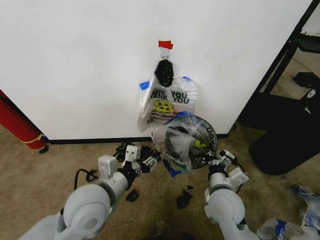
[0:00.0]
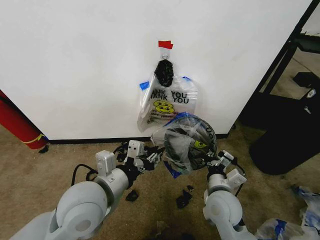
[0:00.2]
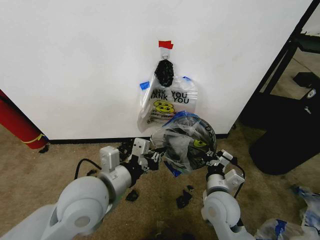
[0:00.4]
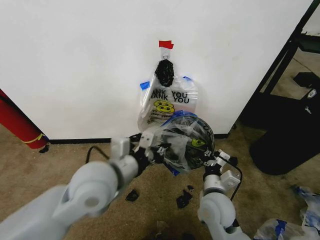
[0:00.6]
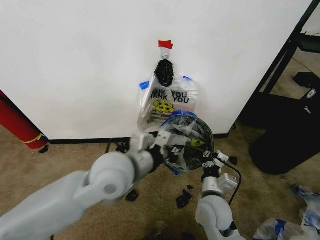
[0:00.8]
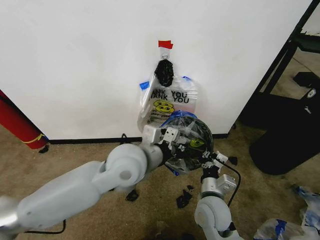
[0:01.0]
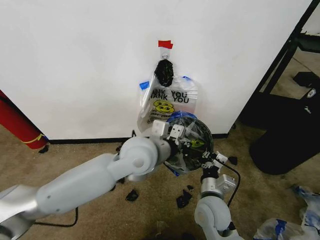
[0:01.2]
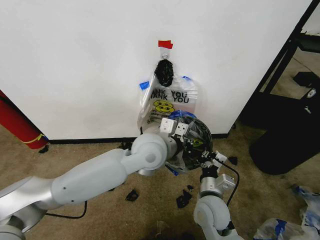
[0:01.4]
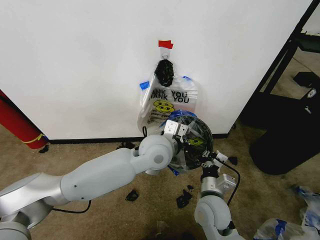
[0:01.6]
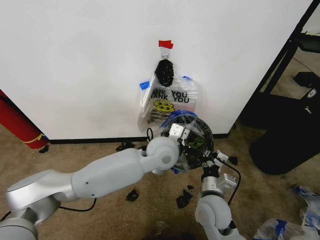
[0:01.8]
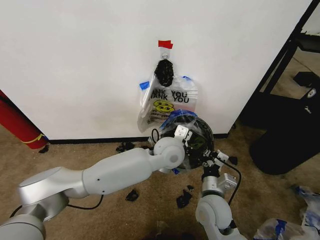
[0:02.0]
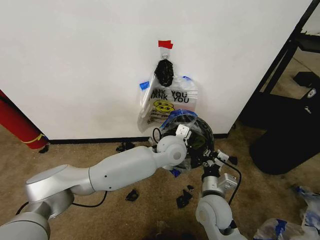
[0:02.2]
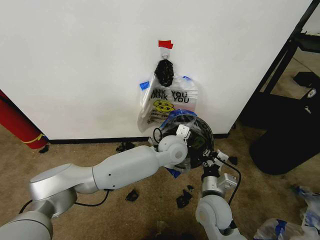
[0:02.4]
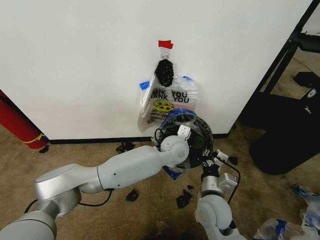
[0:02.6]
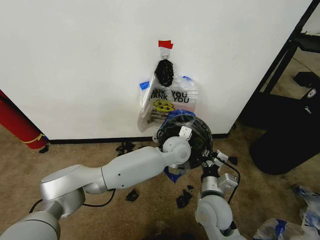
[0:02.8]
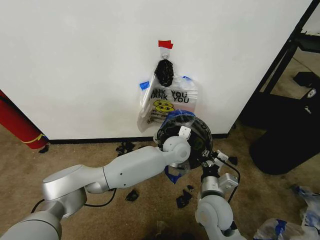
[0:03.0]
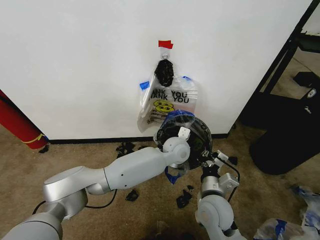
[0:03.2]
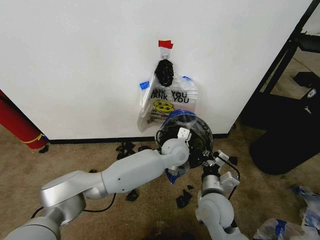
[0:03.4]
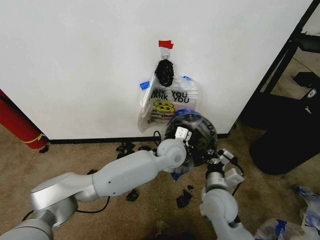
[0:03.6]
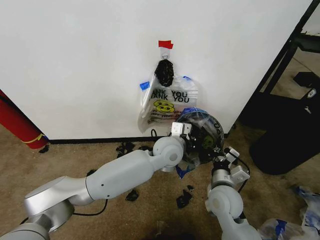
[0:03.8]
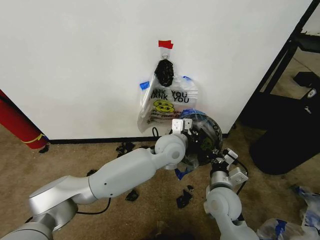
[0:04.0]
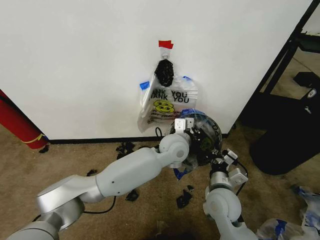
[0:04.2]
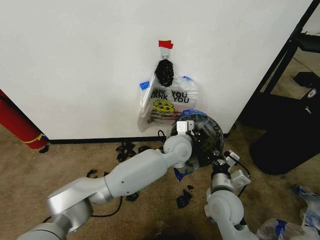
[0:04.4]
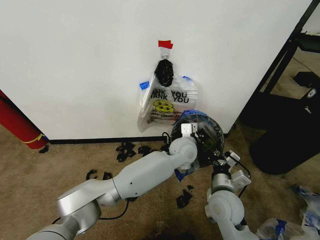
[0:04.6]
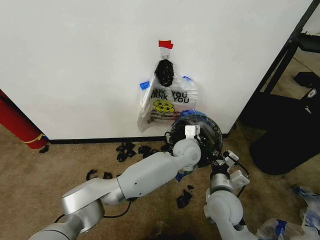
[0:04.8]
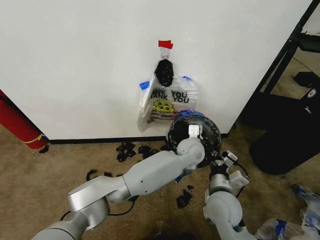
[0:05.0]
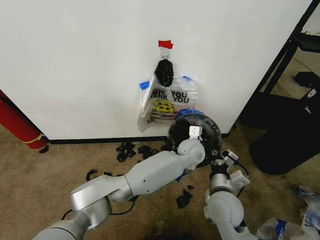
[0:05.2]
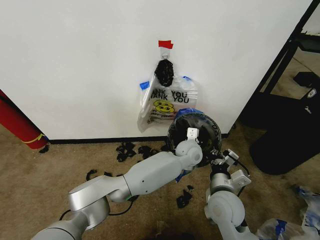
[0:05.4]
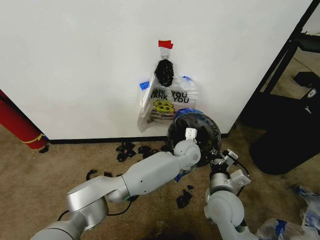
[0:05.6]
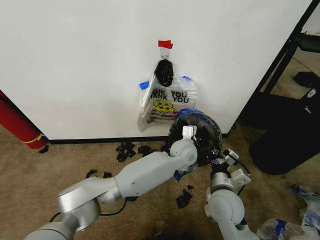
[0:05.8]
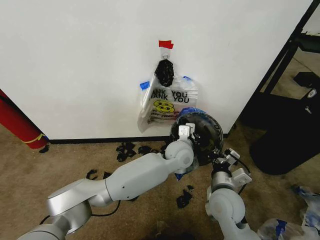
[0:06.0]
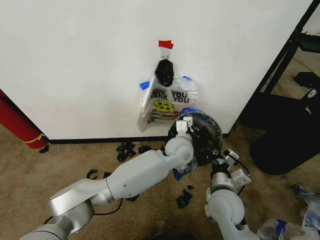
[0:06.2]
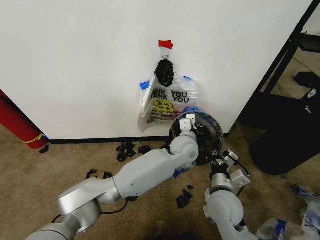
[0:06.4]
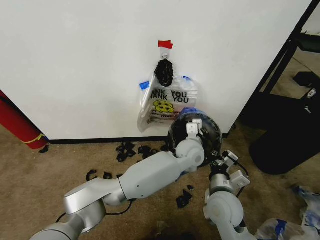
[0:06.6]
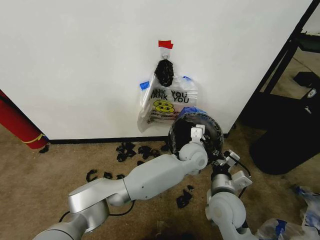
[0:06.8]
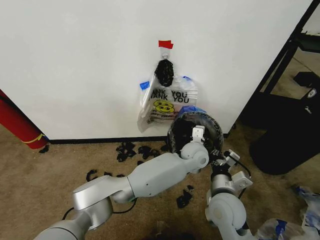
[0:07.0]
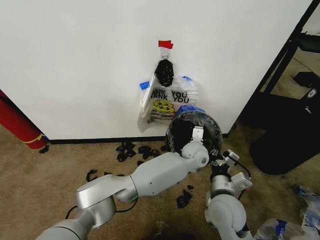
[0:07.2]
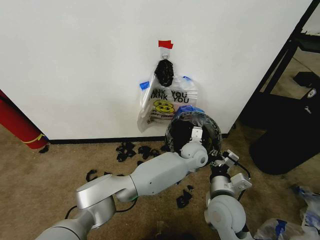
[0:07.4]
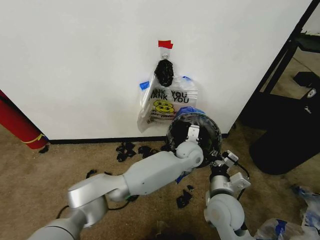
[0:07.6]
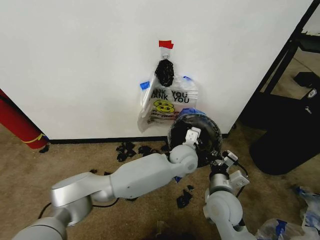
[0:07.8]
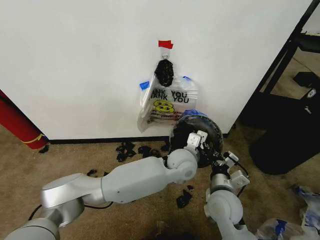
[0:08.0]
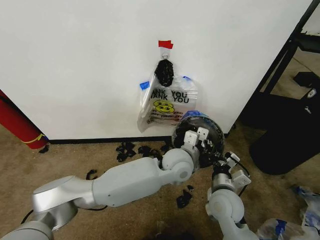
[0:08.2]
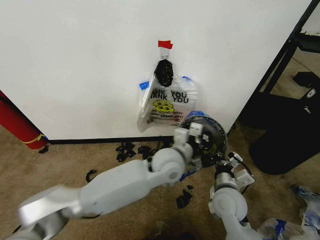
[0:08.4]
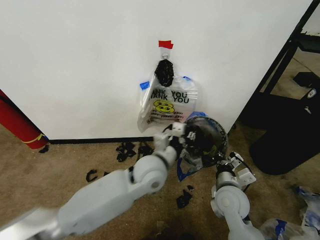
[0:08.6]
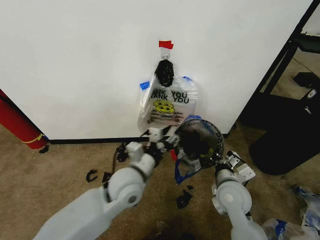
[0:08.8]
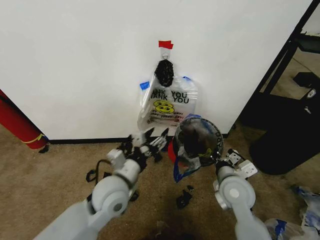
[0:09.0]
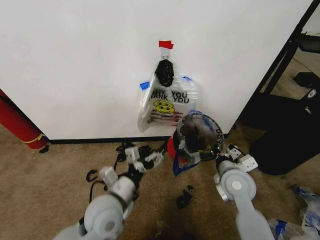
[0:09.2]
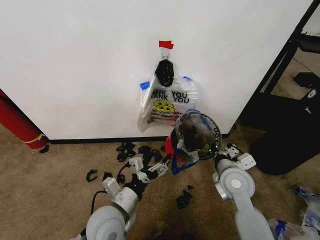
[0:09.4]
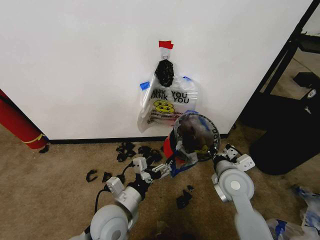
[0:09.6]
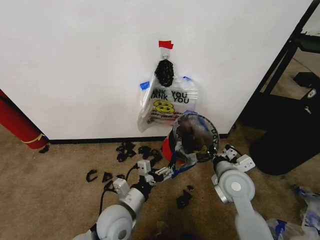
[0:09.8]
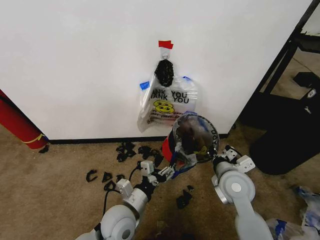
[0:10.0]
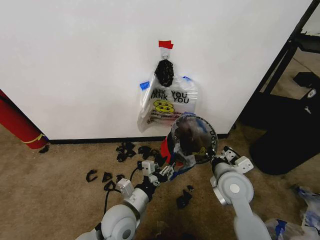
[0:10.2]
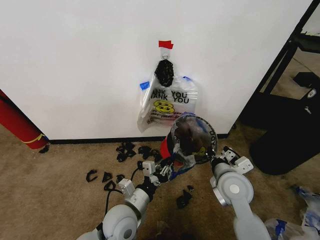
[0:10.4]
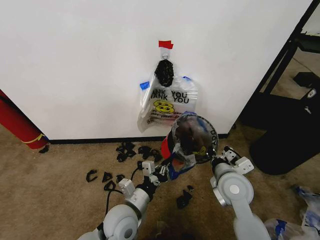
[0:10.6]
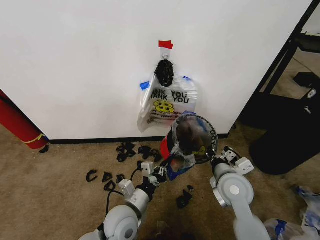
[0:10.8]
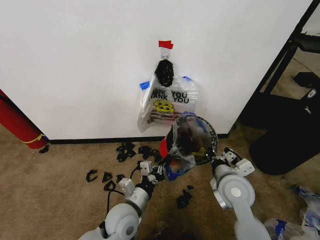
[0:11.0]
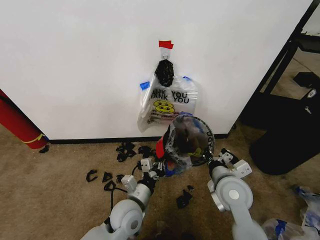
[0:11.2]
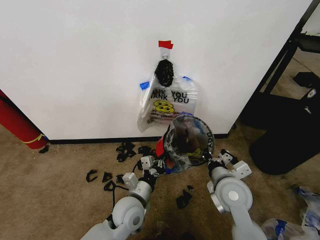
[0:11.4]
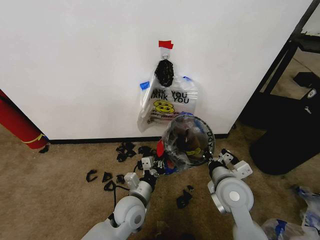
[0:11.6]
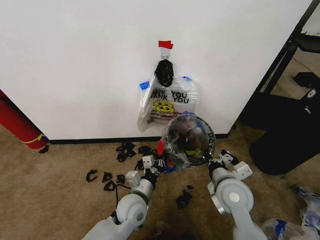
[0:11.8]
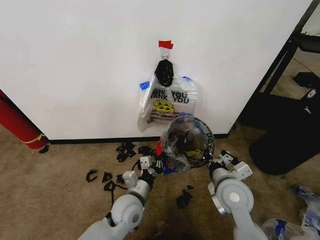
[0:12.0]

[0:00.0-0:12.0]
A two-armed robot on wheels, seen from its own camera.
Task of the whole recording: Pick up the garbage bag from the wall and place it over the trash bin.
0:00.0 to 0:01.6: The left gripper is displaced to the right and forward by roughly 20 cm, and closes up.
0:01.6 to 0:03.0: The left gripper shifts roughly 15 cm downward, forward and to the right.
0:06.0 to 0:07.6: The left gripper changes place by about 5 cm.
0:07.6 to 0:09.0: The left gripper goes some 30 cm to the left and backward, and opens its fingers. The right gripper moves approximately 5 cm.
0:09.0 to 0:10.4: The left gripper heads downward and backward, covering about 10 cm, and closes up.
0:10.4 to 0:12.0: The left gripper ends up about 5 cm from where it was.

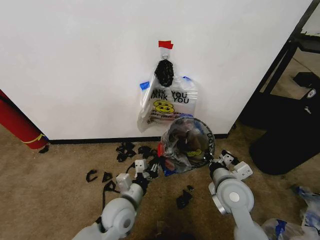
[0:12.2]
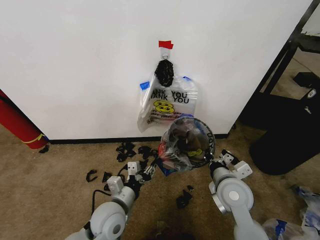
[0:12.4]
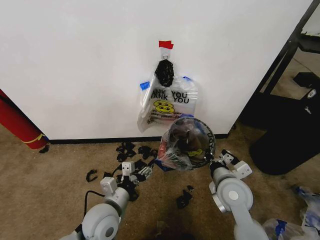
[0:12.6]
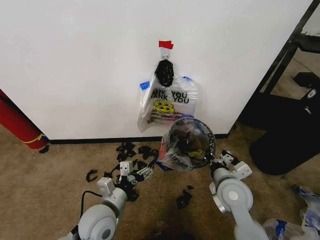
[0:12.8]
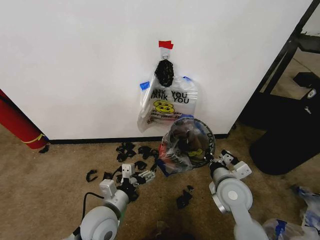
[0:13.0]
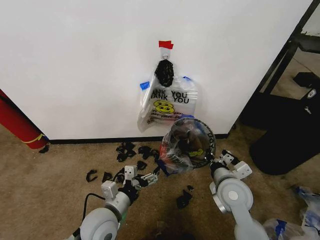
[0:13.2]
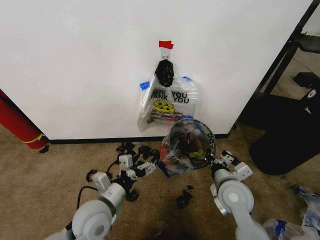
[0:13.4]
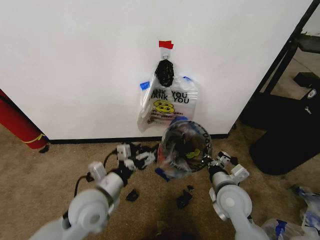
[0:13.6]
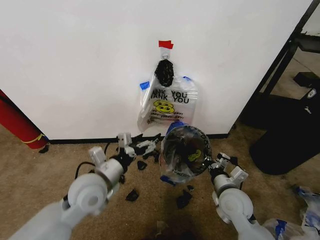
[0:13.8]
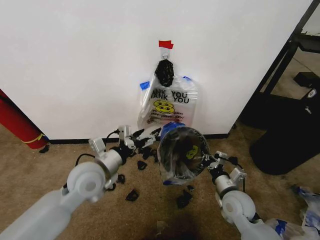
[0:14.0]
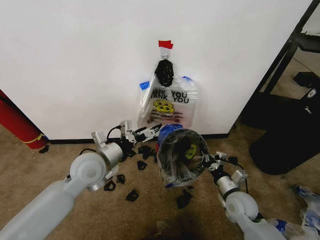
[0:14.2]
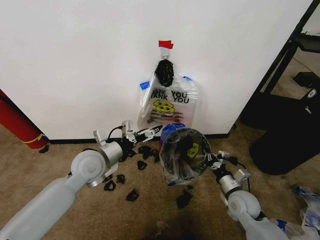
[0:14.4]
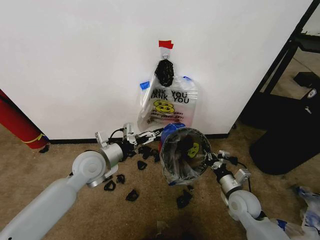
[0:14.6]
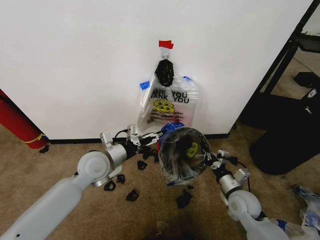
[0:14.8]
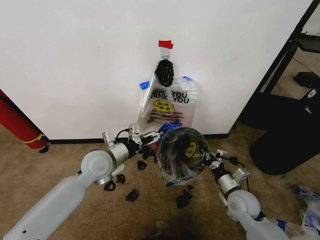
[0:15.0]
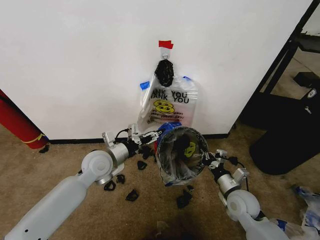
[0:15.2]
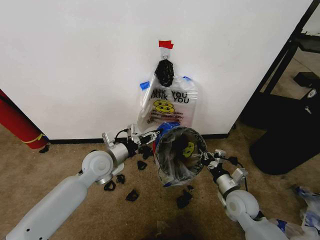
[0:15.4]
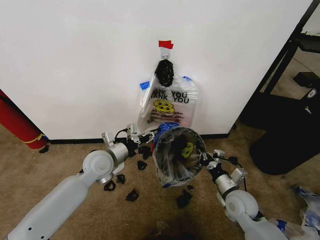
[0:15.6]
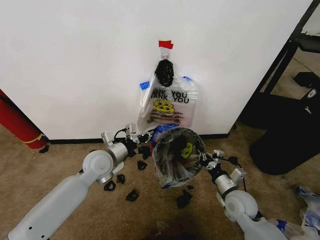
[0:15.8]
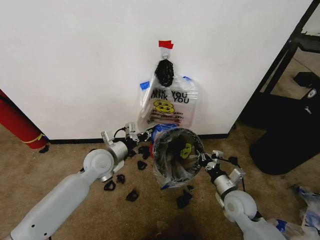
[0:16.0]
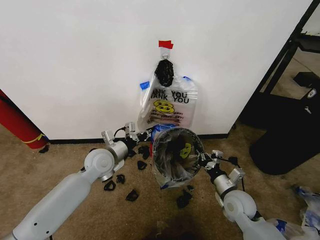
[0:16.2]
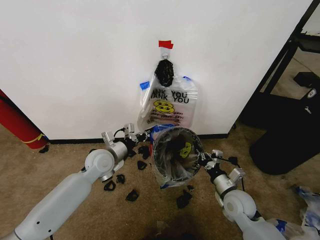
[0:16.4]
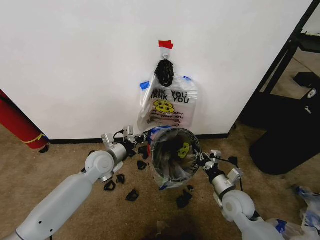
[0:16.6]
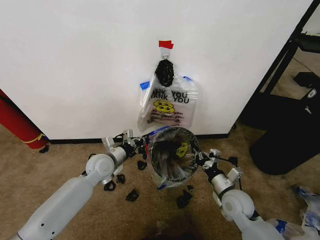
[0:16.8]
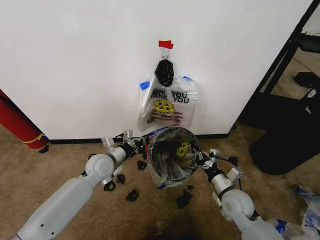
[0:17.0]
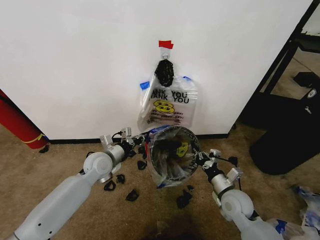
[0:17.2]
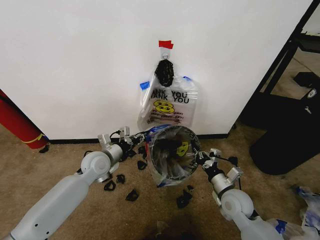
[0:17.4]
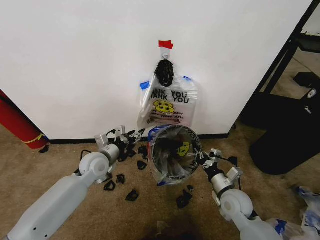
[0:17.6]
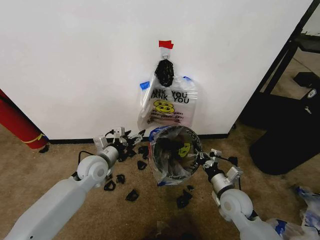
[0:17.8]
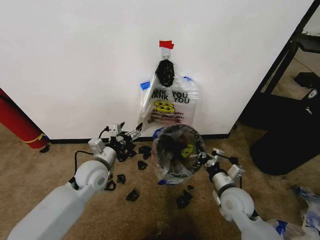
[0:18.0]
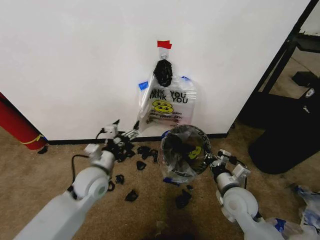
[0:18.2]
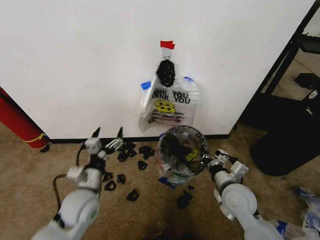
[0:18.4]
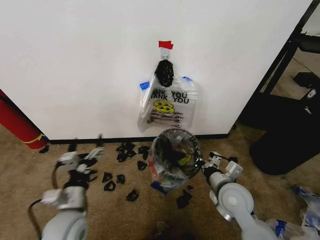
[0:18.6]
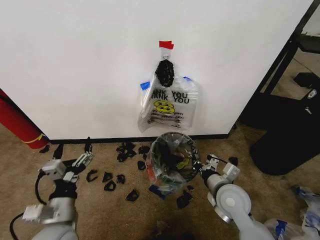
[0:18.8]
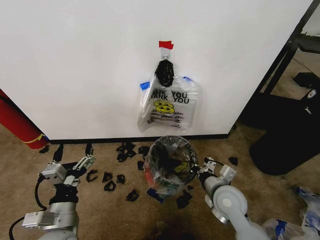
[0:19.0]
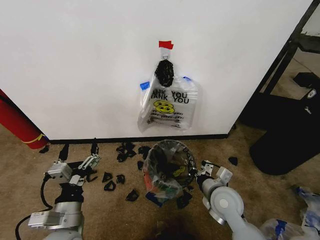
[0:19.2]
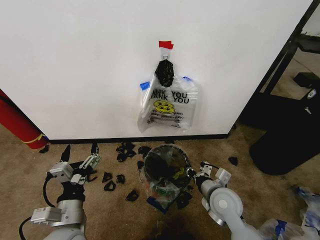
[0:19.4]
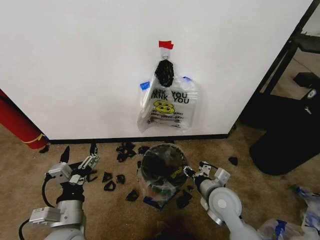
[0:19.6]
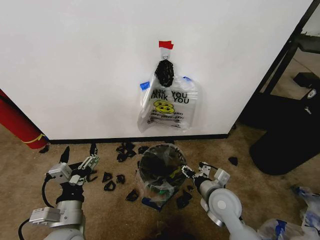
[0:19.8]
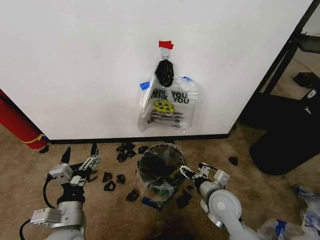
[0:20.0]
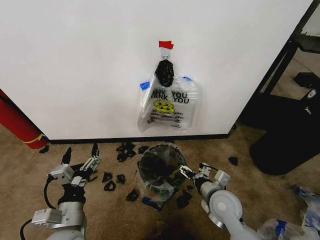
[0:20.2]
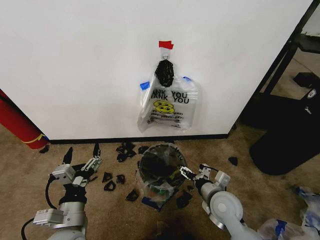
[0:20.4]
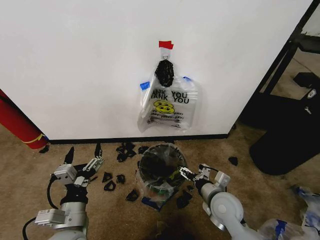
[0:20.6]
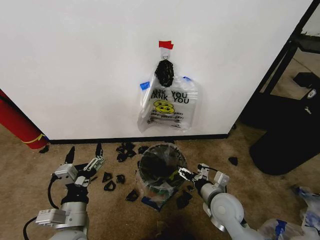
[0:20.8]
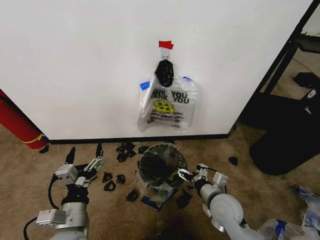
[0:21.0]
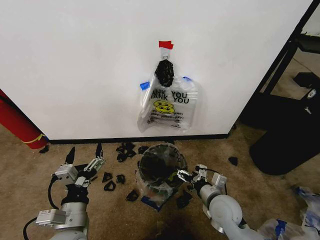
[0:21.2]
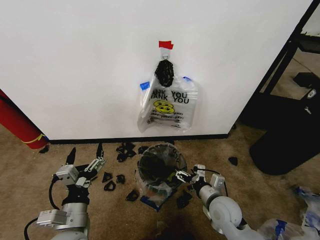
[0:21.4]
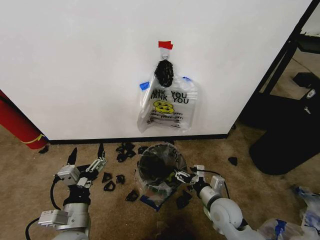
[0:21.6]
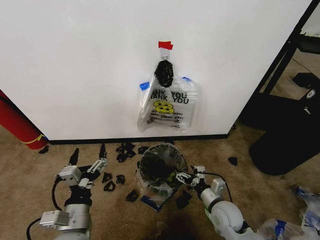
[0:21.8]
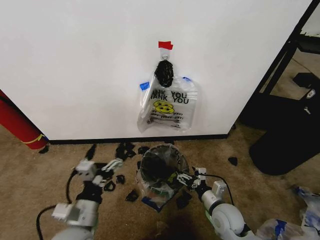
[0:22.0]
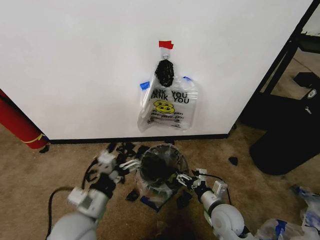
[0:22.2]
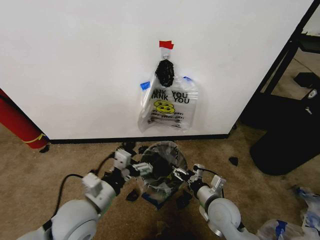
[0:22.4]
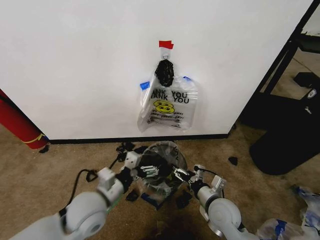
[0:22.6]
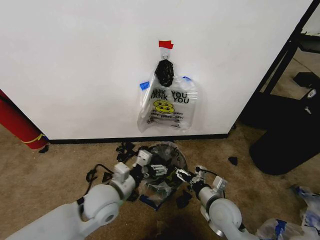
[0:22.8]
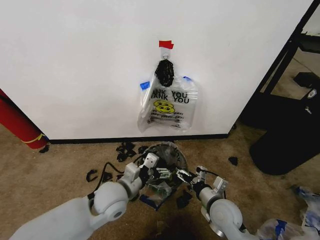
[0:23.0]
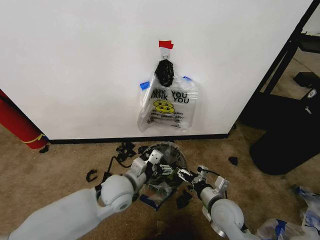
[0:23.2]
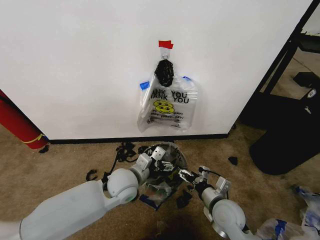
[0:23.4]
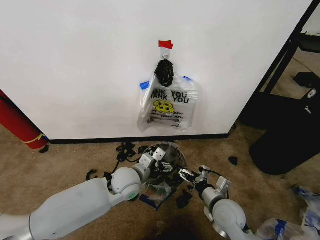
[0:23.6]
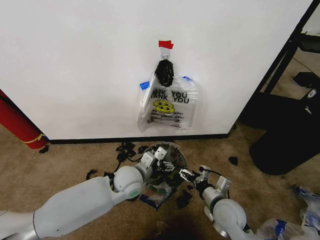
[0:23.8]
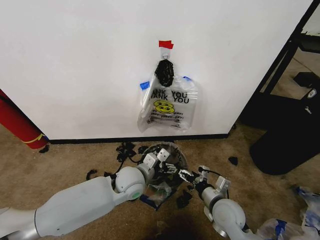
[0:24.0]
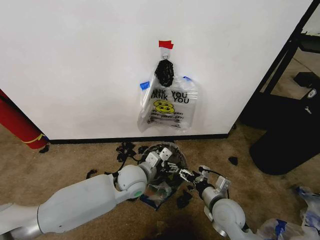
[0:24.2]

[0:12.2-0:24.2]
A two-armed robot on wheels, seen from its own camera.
Task of the whole recording: Pick up the garbage bag from the wall and place it over the trash bin.
0:12.2 to 0:13.8: The left gripper heads upward and to the left, covering about 15 cm, and opens its fingers. Meanwhile the right gripper moves downward, some 5 cm.
0:13.8 to 0:15.2: The right gripper changes place by roughly 5 cm. The left gripper goes about 10 cm forward.
0:15.2 to 0:16.6: The left gripper ends up about 5 cm from where it was, and closes its fingers.
0:16.6 to 0:18.2: The left gripper travels backward by some 10 cm, and opens up.
0:18.2 to 0:19.8: The left gripper is displaced backward by approximately 15 cm. The right gripper heads to the left, covering about 5 cm, and opens.
0:19.8 to 0:21.2: The right gripper opens up.
0:21.2 to 0:22.6: The left gripper travels forward by some 10 cm.
0:22.6 to 0:24.2: The left gripper moves forward and to the right, roughly 15 cm.
